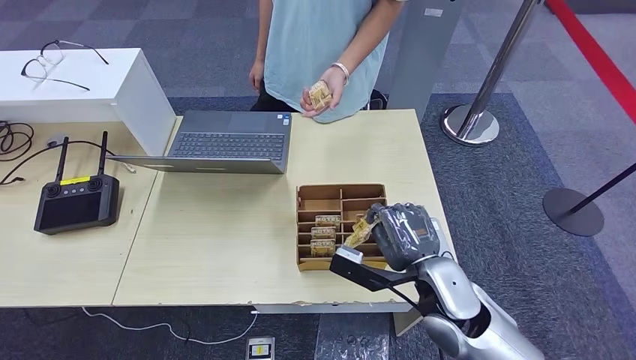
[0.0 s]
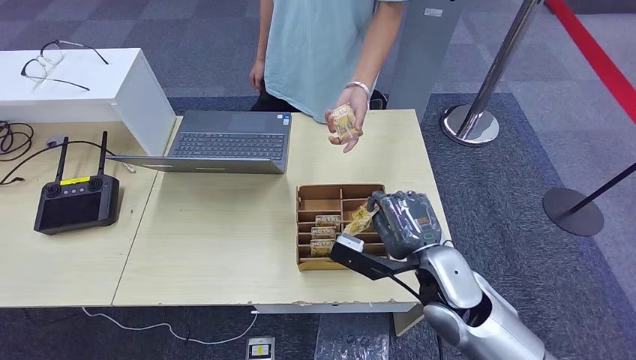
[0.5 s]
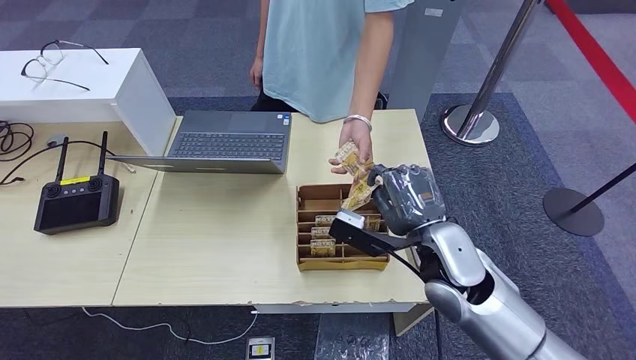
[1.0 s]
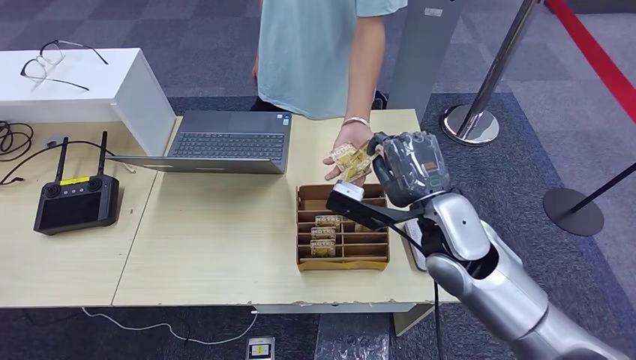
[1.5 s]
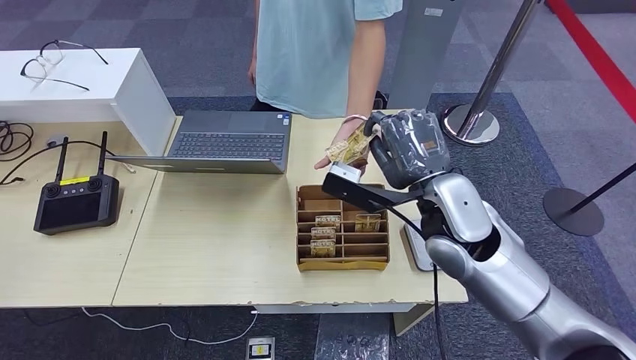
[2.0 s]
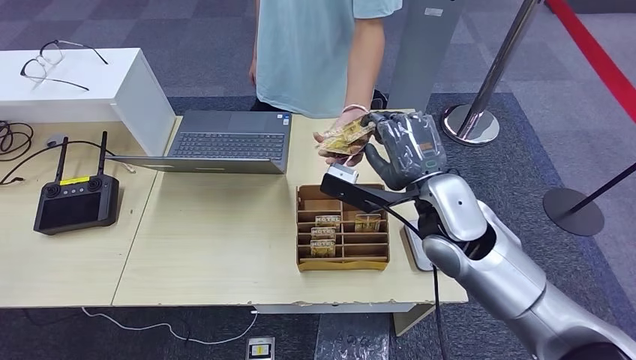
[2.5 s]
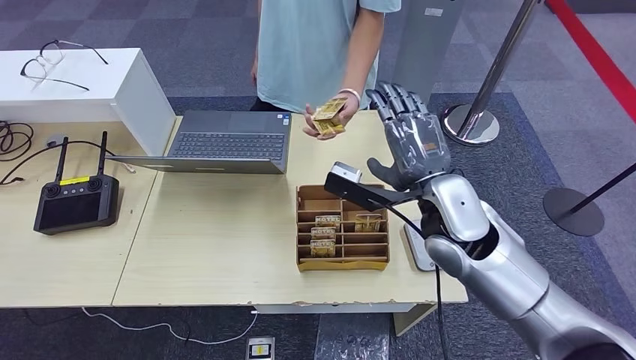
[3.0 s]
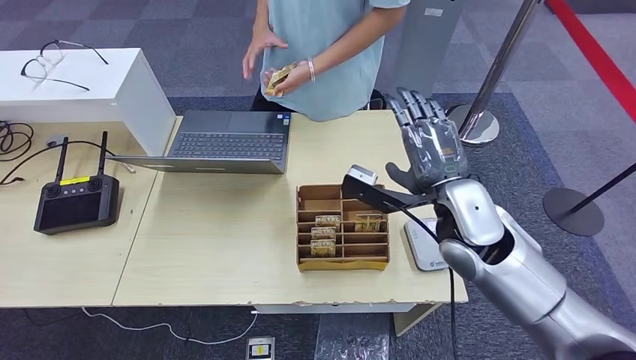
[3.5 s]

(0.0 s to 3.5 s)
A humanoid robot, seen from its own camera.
Step, 0.5 s - 3.5 s: Hand the room key to the person.
0.0 s - 2.0 s: The right hand moves upward and forward, approximately 15 cm.
2.0 s - 3.5 s: The hands move only a little.
